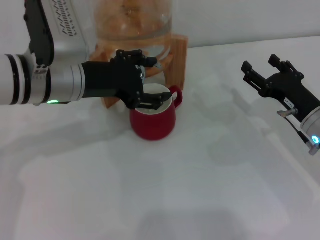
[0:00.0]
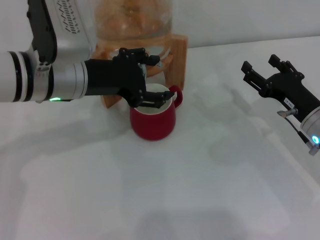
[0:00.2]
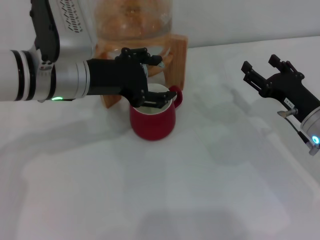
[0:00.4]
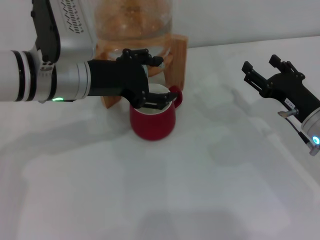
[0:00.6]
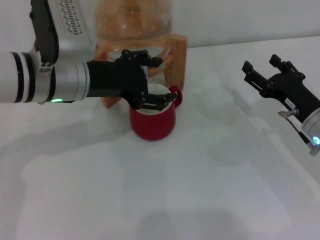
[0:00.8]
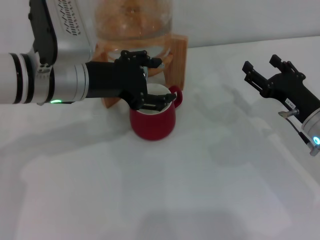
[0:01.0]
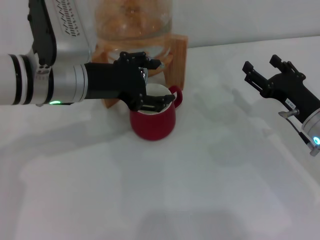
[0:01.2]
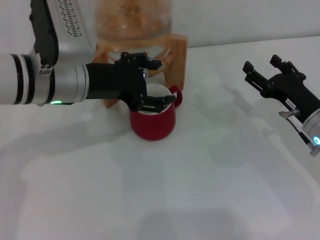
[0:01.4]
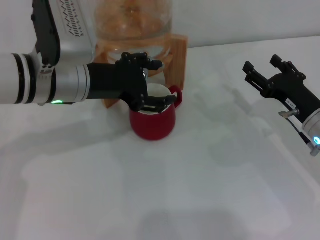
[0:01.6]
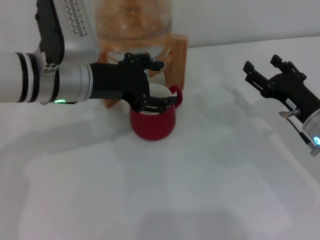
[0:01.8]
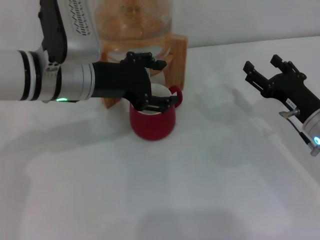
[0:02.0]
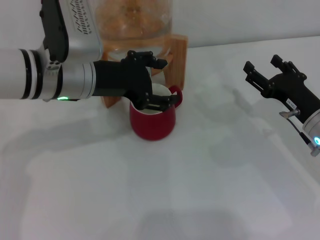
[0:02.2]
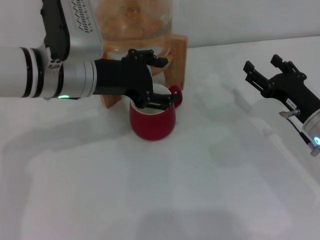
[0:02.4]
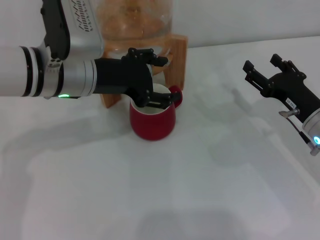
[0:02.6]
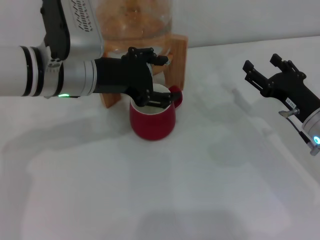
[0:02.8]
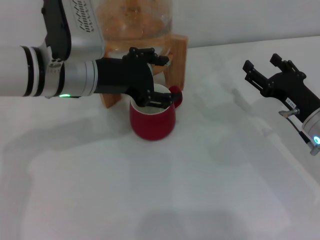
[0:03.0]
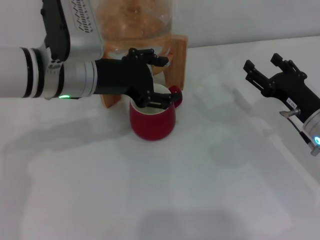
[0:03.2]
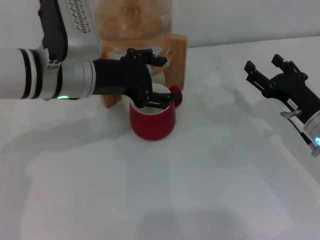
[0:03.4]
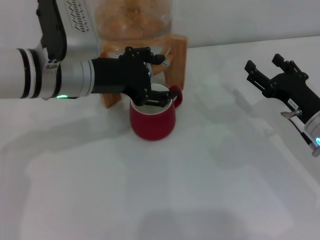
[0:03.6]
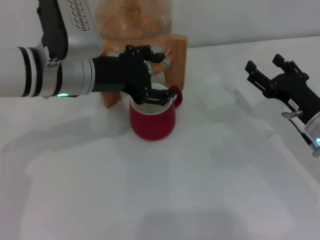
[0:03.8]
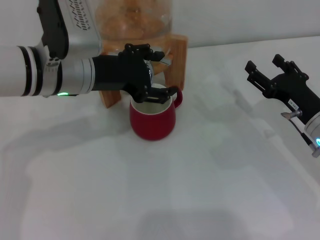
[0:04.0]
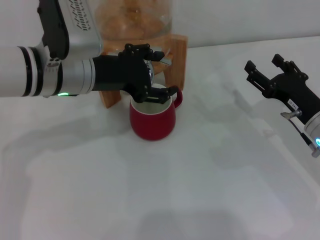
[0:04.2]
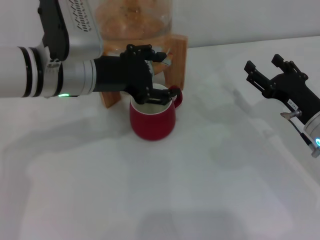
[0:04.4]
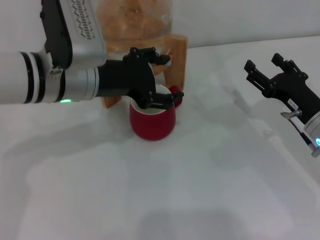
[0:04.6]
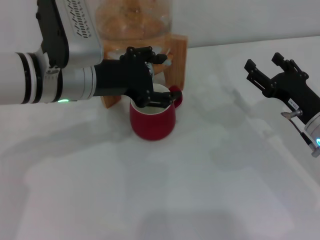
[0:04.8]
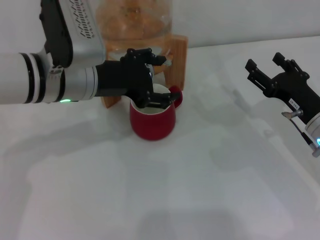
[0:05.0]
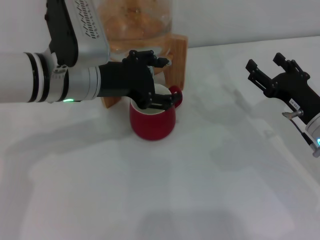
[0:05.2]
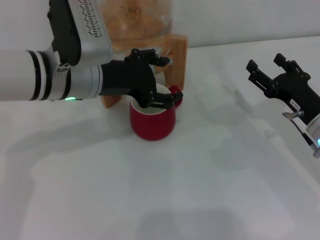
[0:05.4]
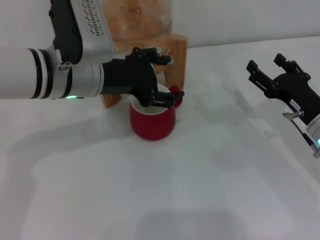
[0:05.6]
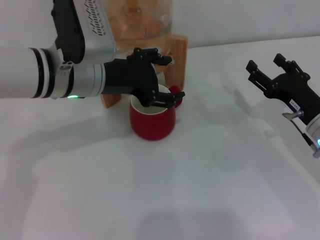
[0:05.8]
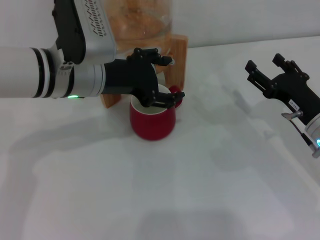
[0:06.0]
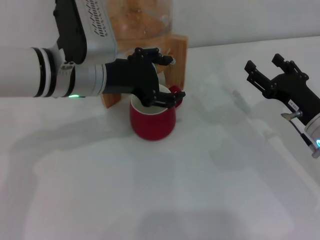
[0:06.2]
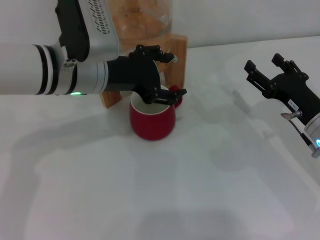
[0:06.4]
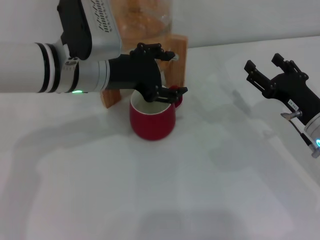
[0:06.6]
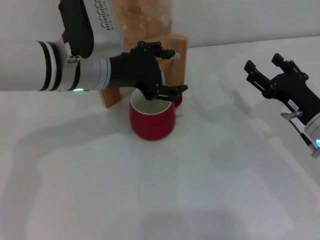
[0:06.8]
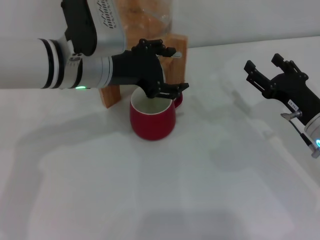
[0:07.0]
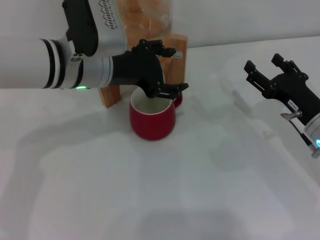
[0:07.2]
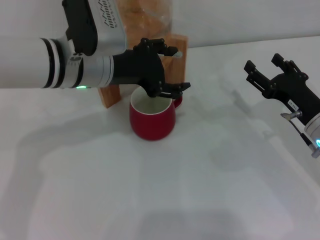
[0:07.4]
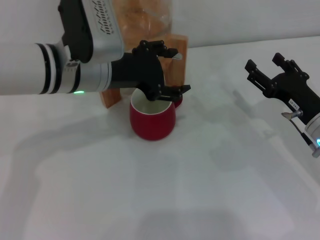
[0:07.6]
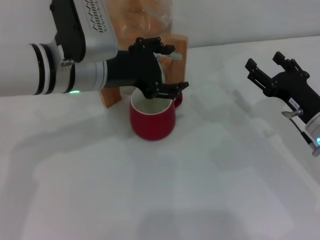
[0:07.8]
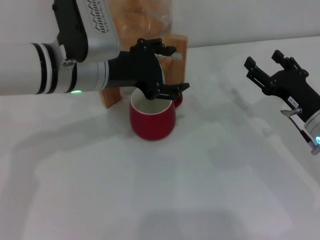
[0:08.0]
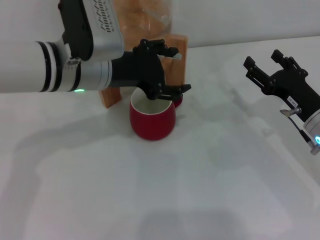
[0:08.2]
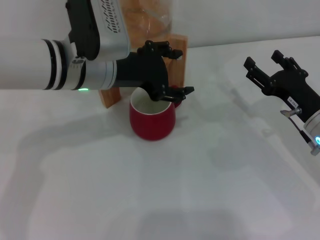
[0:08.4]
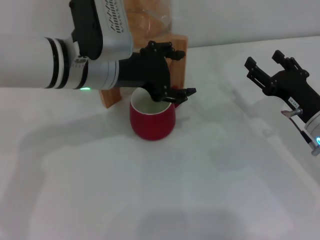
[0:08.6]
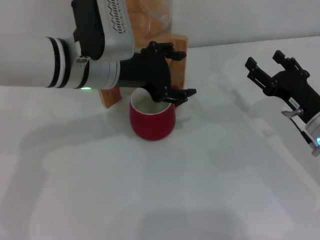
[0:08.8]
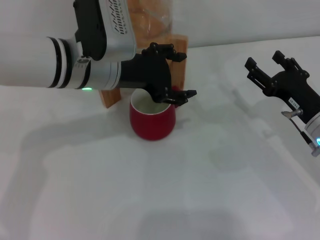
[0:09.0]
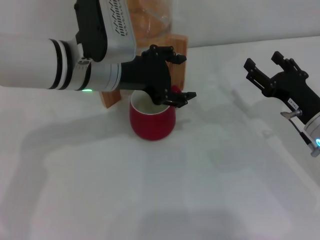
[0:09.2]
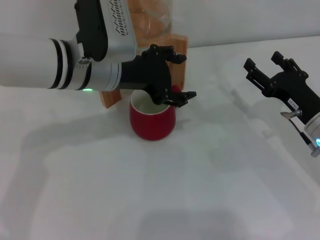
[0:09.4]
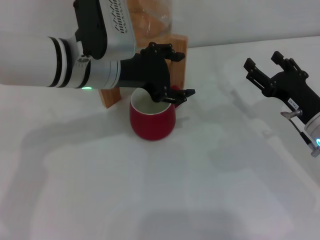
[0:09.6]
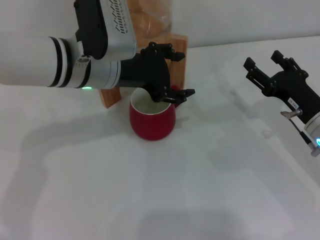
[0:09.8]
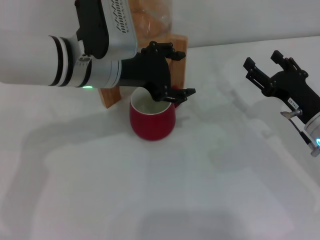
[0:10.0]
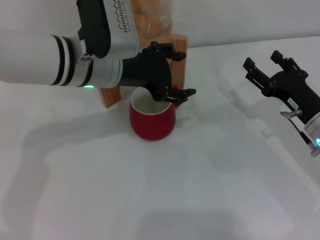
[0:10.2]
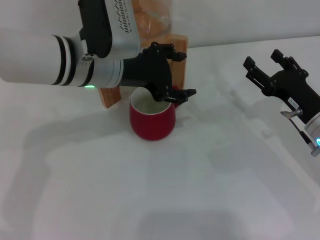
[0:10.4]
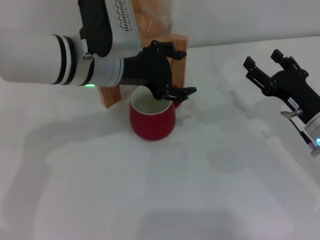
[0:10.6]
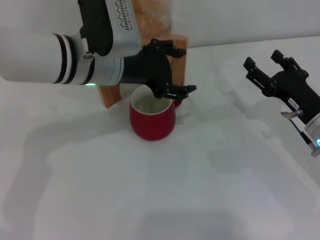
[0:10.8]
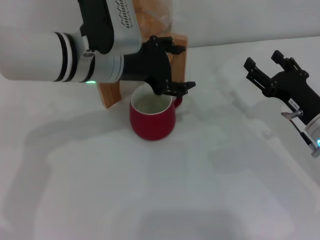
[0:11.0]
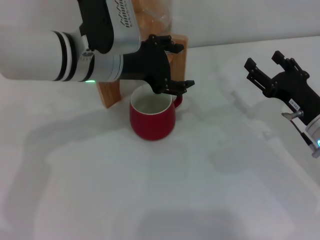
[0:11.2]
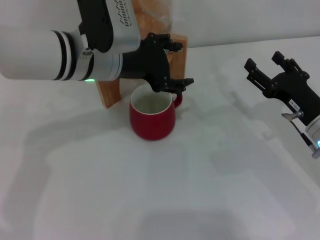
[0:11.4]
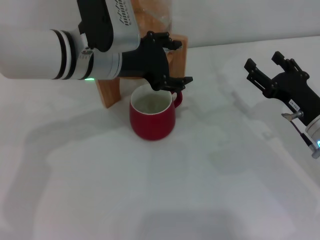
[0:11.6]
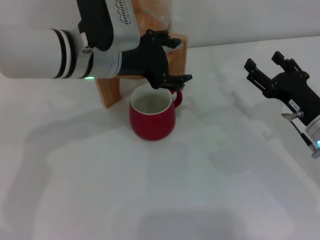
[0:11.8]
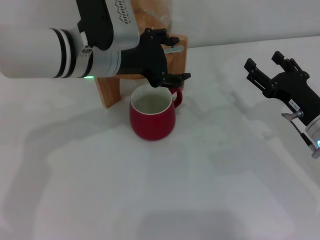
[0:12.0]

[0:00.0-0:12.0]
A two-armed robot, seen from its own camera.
Task of the whole recording: the right gripper pick up the red cup and place it horizontally under the faucet, the left gripper turn on the faucet to fill the cup, and then turn off the faucet.
Step, 0:00.0 to 0:11.2: Close the dispenser valve with the left gripper.
0:00.0 to 0:01.6: The two grippers keep their place.
0:01.6 to 0:04.4: Both grippers stay about where they are.
0:04.4 to 0:06.0: The two grippers keep their place.
0:06.0 to 0:07.6: The grippers stay close to where they were, moving slightly.
0:07.6 to 0:09.0: Both grippers stay about where they are.
0:09.0 to 0:10.4: Both grippers stay put.
0:10.4 to 0:12.0: The grippers move only a little.

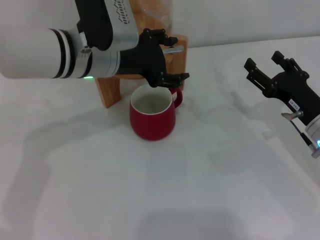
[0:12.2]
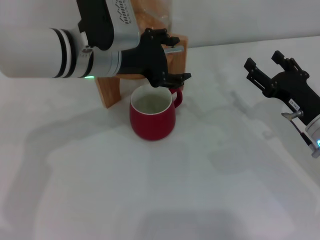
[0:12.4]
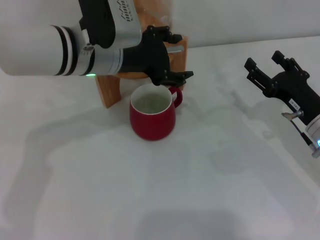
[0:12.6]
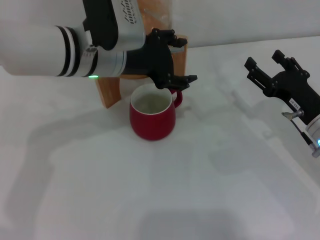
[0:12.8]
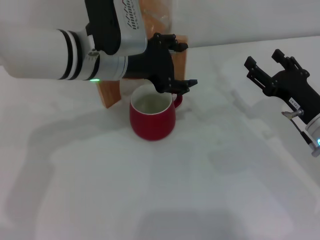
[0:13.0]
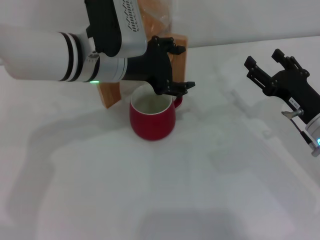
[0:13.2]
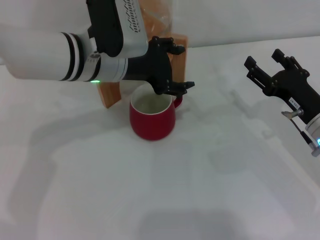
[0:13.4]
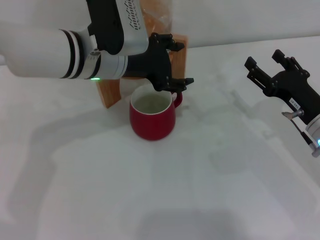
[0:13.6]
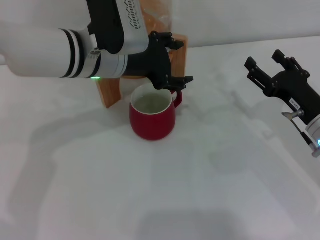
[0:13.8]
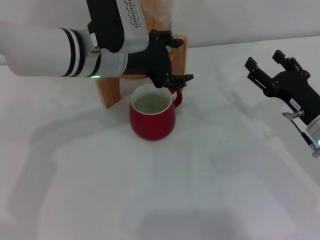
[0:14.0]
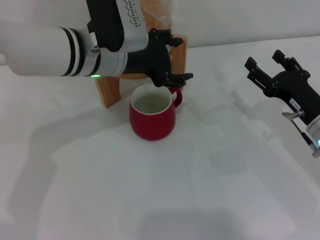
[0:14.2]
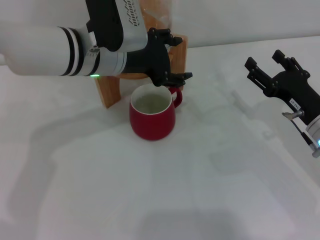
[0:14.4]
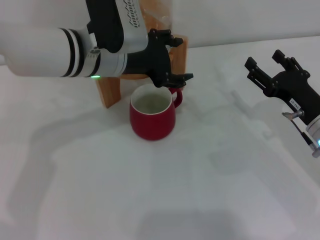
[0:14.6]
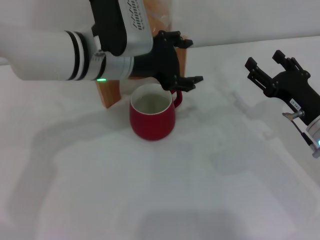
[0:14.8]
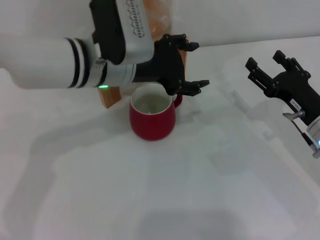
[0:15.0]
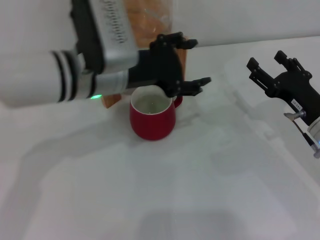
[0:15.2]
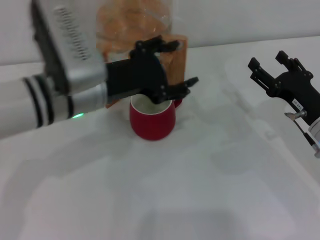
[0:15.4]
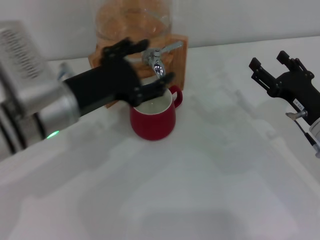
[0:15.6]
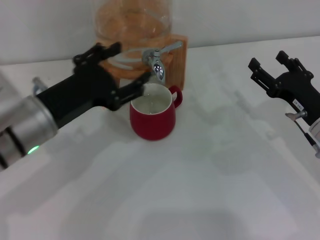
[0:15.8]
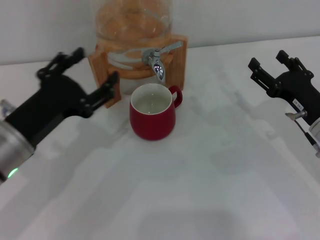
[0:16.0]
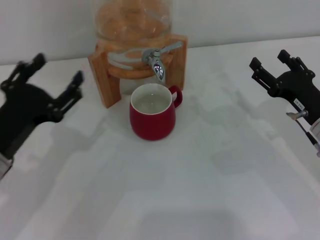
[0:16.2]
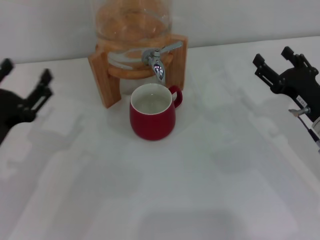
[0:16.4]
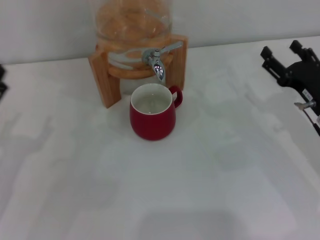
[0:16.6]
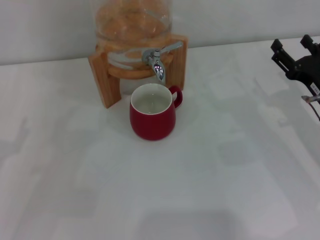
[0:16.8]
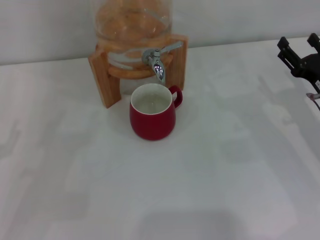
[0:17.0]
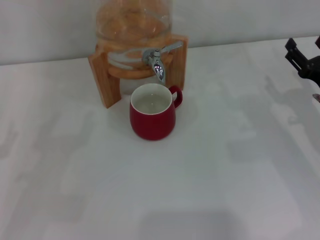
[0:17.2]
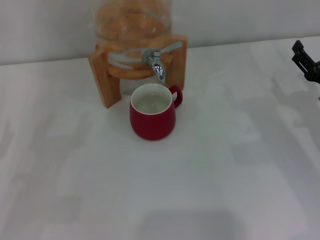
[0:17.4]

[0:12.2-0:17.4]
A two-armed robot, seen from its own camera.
Task of the whole recording: the right gripper pick up the red cup and place it horizontally under the faucet, the left gripper turn on the faucet to fill the cup, and then turn off the faucet.
0:12.2 to 0:14.0: Neither gripper changes place.
0:14.0 to 0:15.6: The left gripper heads backward and to the left, covering about 10 cm.
0:15.6 to 0:17.4: The left gripper goes approximately 20 cm to the left, downward and backward.
